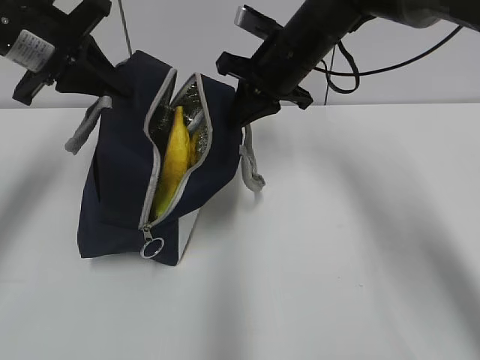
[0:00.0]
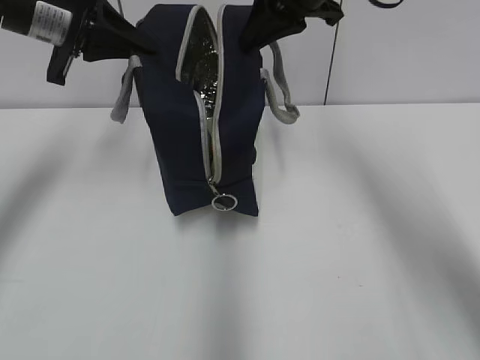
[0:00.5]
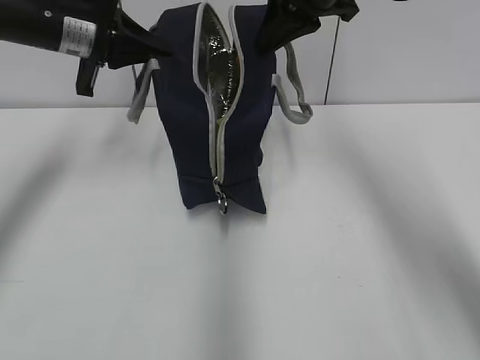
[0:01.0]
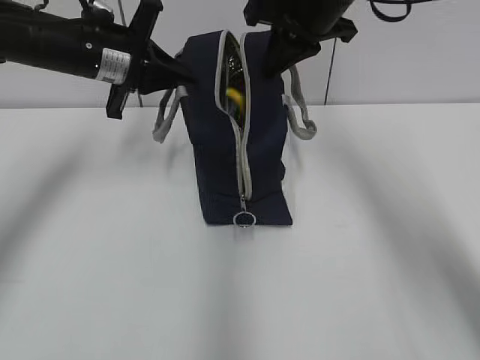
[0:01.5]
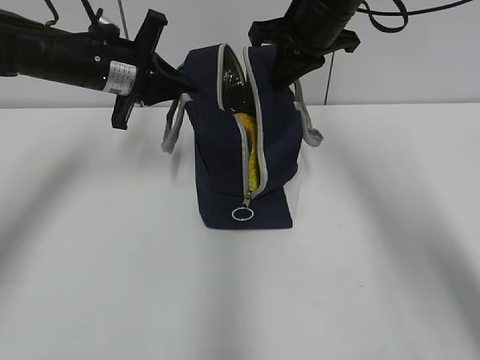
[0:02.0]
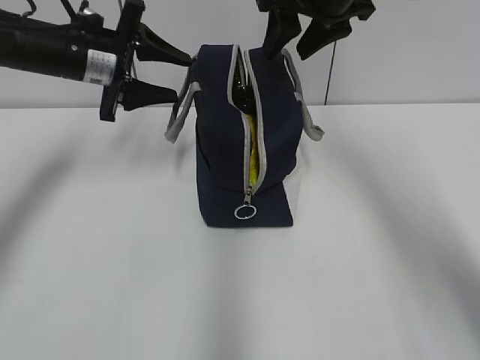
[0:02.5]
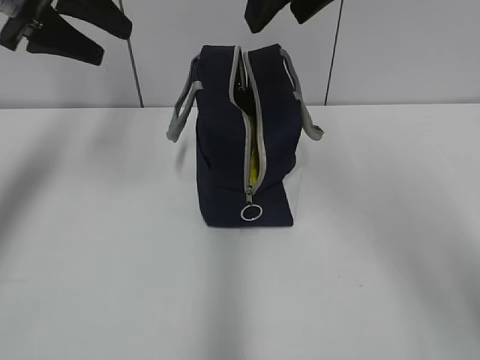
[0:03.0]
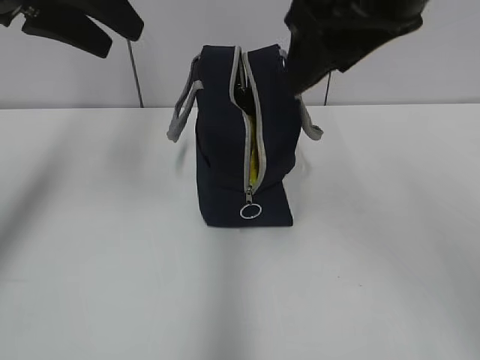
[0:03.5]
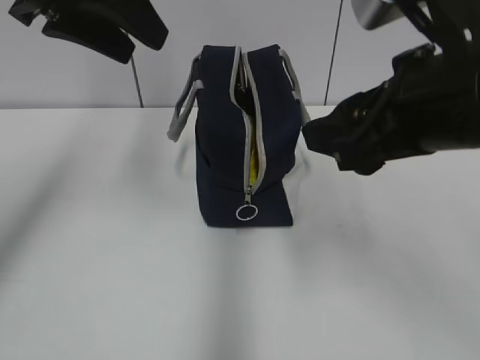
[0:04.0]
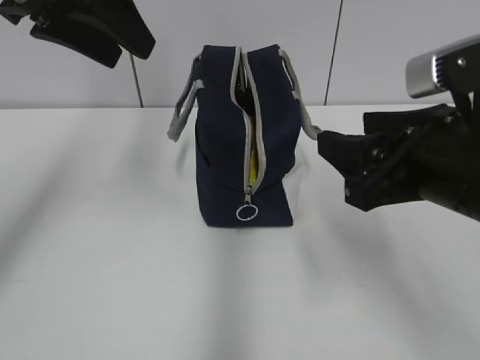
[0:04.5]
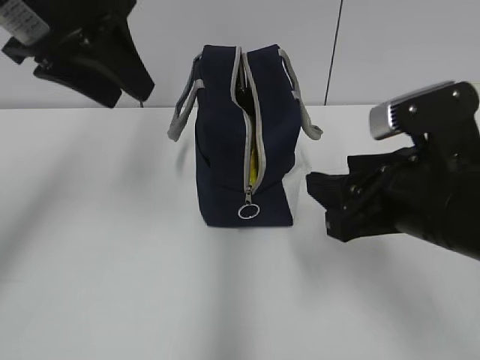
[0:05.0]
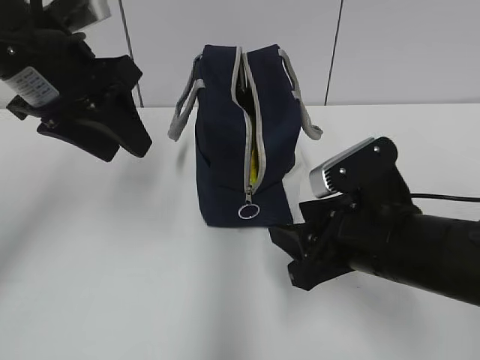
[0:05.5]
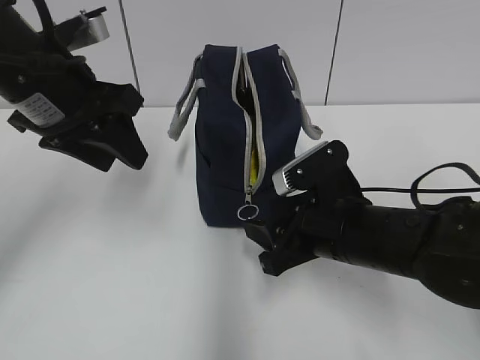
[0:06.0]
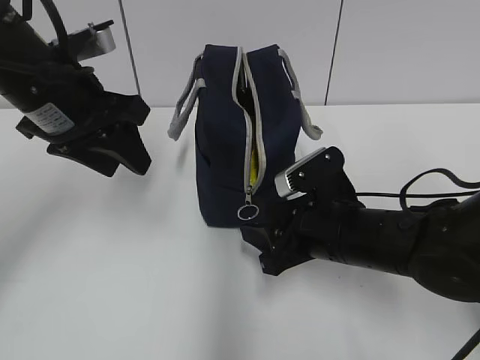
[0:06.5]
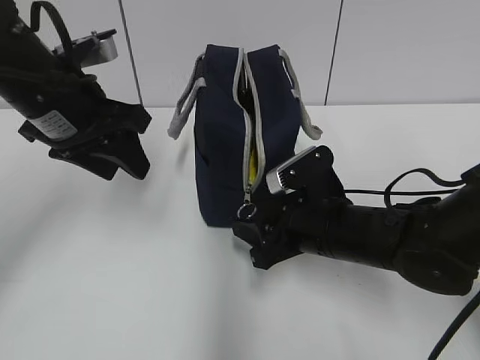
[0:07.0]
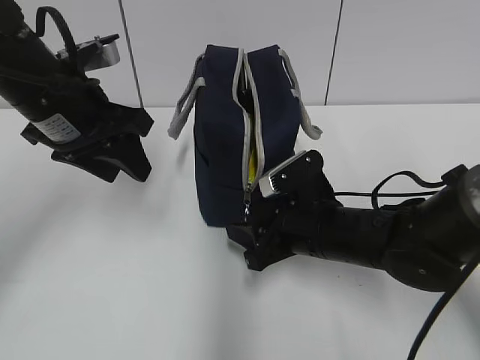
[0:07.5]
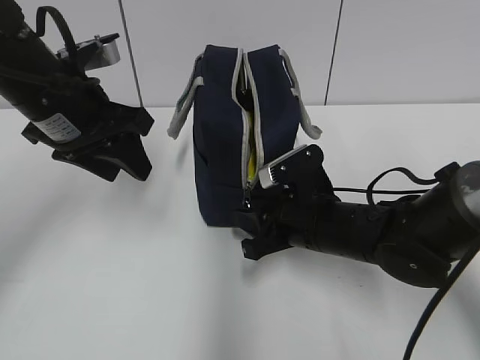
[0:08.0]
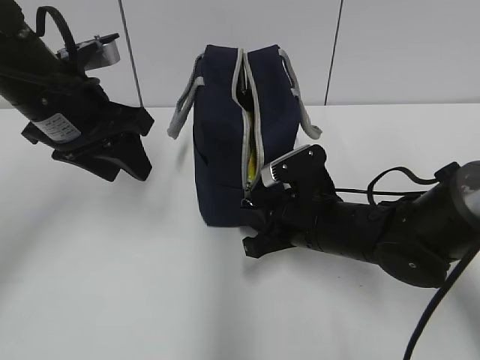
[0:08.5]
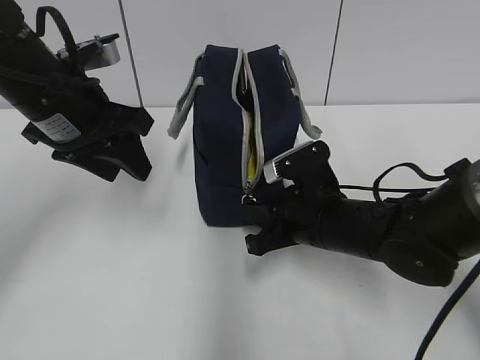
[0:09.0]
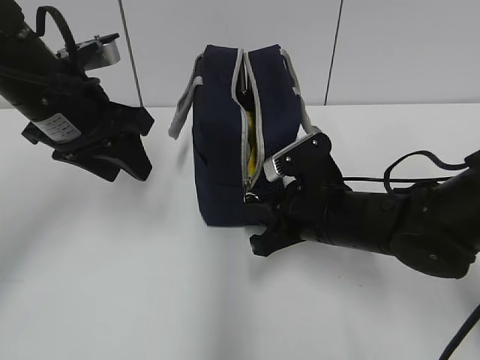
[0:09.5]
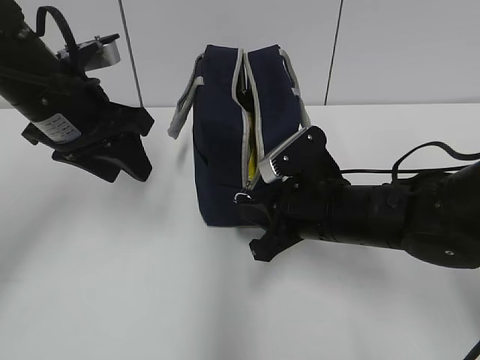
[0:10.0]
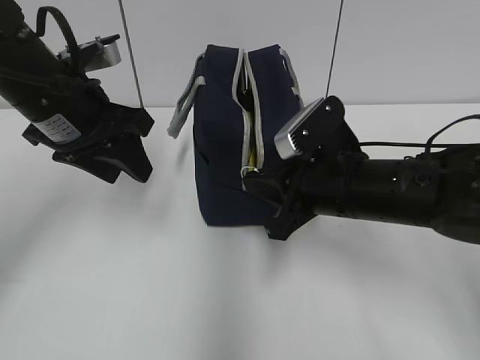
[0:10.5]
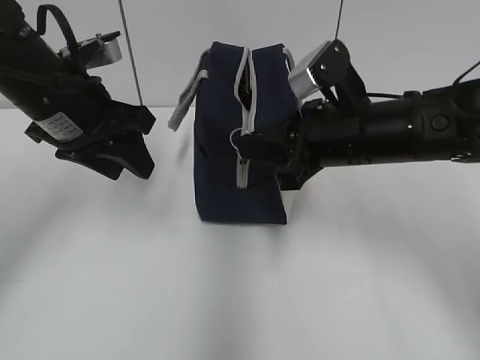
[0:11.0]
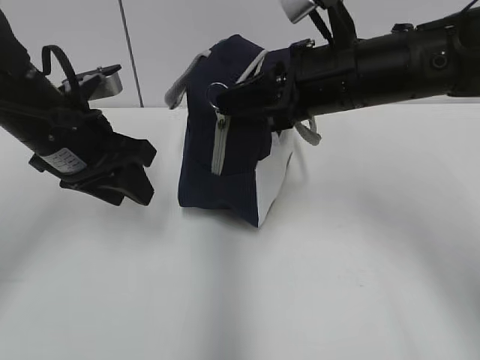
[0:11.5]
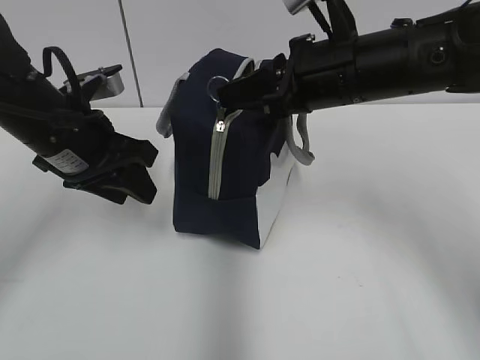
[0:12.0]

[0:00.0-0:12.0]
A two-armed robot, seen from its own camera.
Step, 0:00.0 to 0:02.0: Move the lunch bag to the right.
0:00.0 to 0:02.0: The right gripper moves upward, roughly 5 cm, while the left gripper is displaced downward and forward by roughly 10 cm.
0:02.0 to 0:04.0: The right gripper heads backward, covering approximately 25 cm, and opens its fingers. The left gripper shifts approximately 20 cm upward and backward, and opens up.
0:04.0 to 0:06.0: The right gripper shifts roughly 15 cm downward. The left gripper goes approximately 10 cm downward.
0:06.0 to 0:08.0: The right gripper moves about 5 cm.
0:08.0 to 0:10.0: The right gripper closes up.
0:10.0 to 0:12.0: The right gripper is displaced upward by roughly 15 cm.

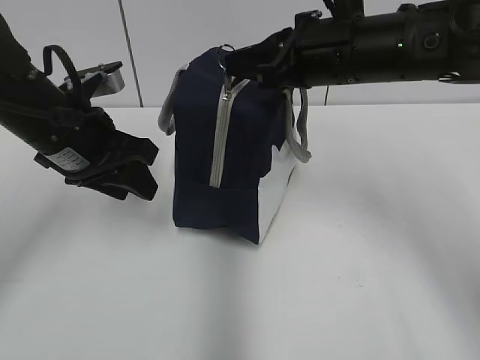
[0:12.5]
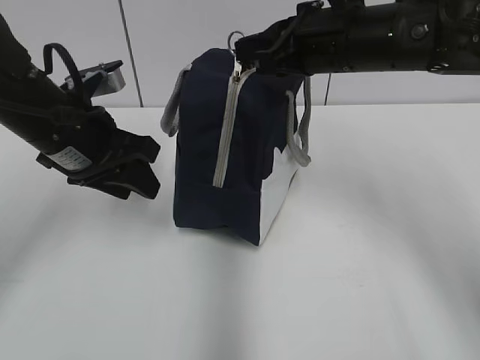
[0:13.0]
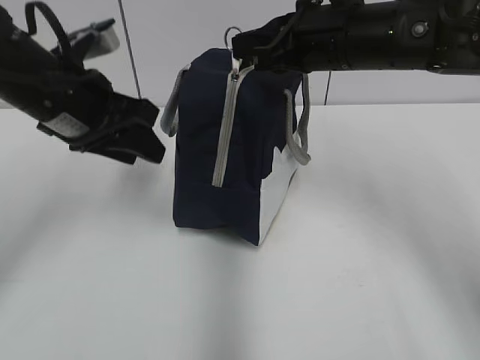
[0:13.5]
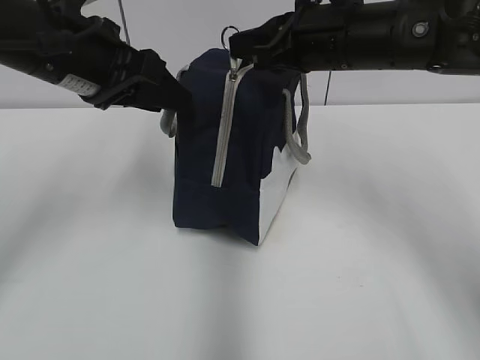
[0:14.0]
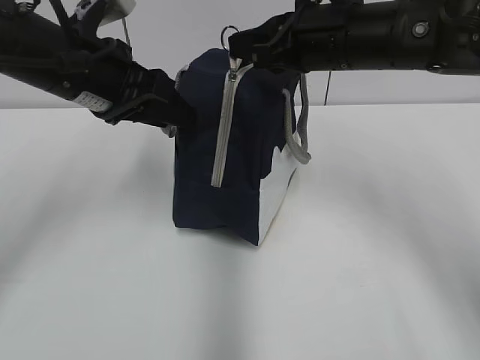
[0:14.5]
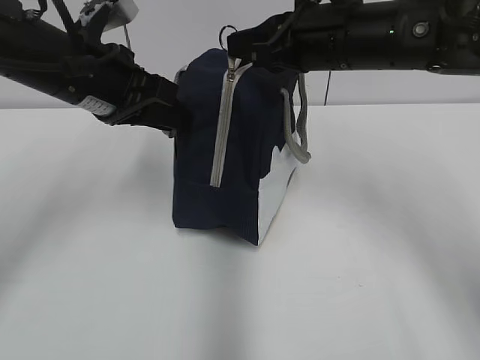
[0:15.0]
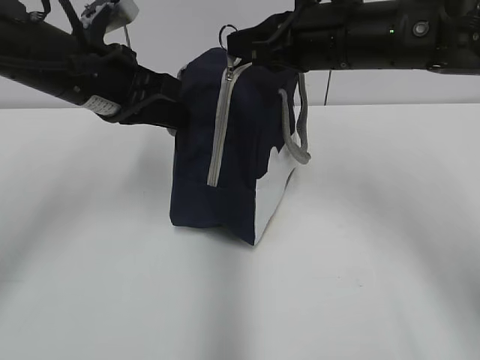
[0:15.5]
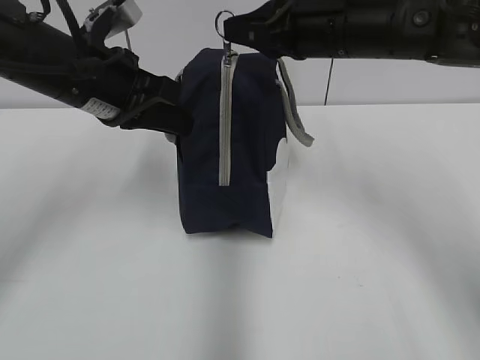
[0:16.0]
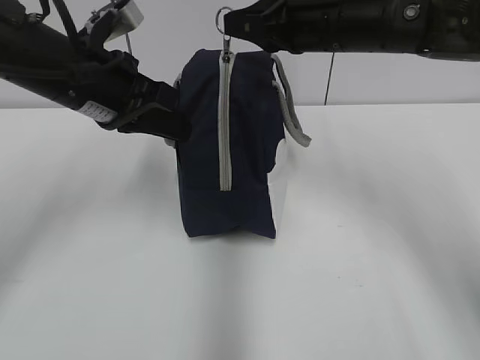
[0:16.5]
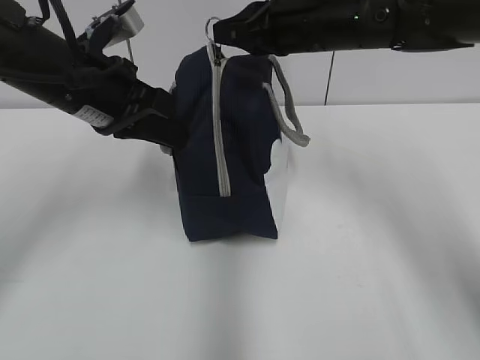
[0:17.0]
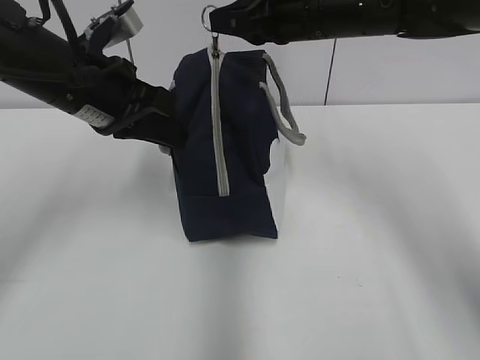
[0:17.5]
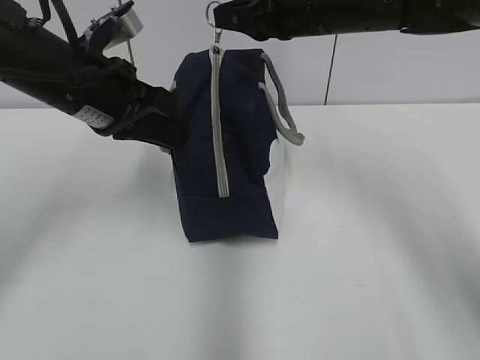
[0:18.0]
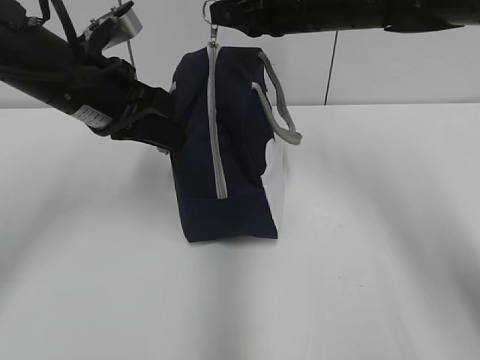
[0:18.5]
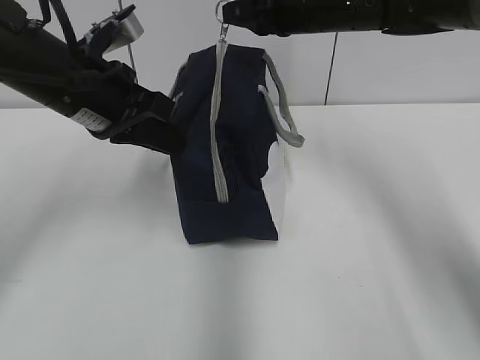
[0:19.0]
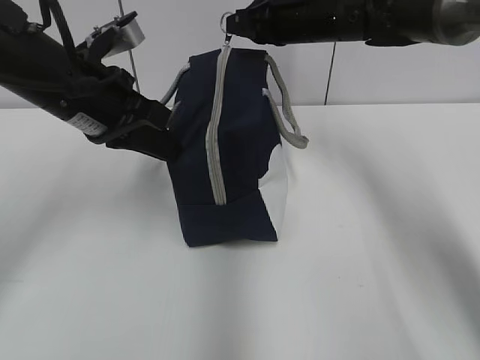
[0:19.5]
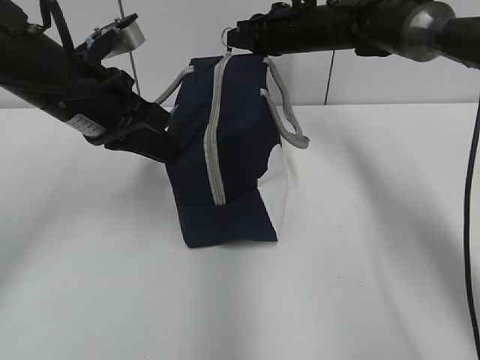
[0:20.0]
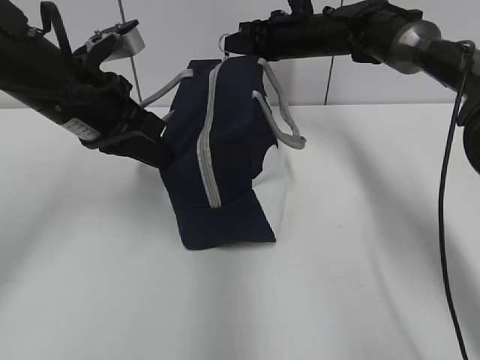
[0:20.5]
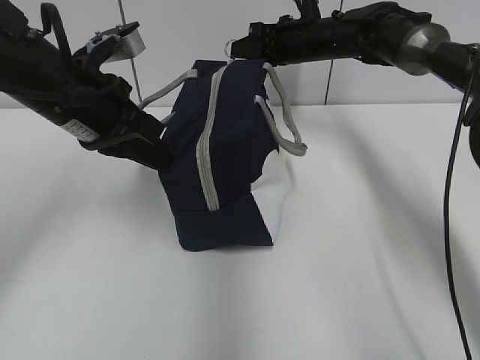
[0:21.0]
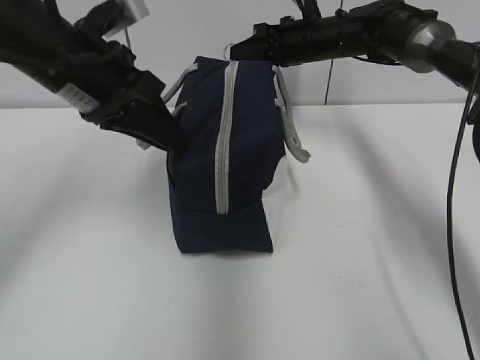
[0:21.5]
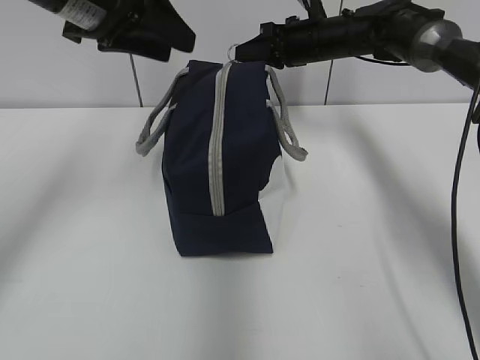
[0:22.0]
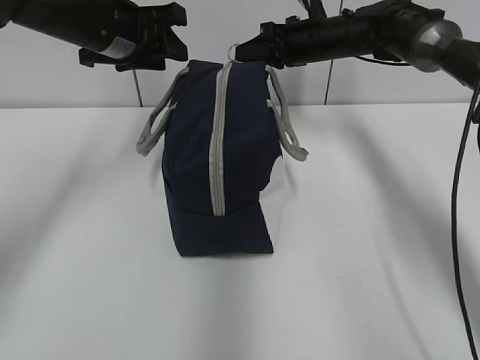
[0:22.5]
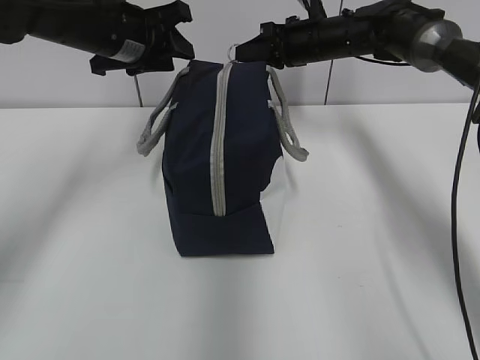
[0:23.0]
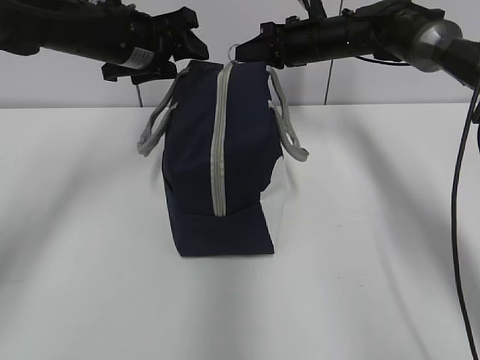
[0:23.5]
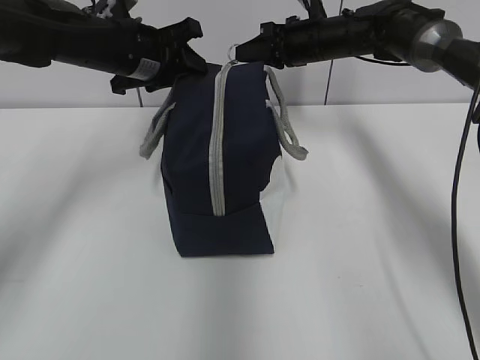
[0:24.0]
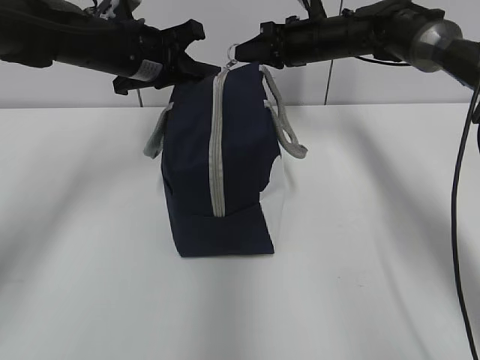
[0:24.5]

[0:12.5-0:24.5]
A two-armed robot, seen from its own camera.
Step, 0:12.5 to 0:15.5: Grab the lunch bag with your left hand.
0:12.5 to 0:14.5: The left gripper shifts by approximately 5 cm.
0:14.5 to 0:16.5: The left gripper closes up.
0:16.5 to 0:18.5: The grippers make only small movements.
0:18.5 to 0:20.5: The right gripper moves forward and downward, about 15 cm.
0:20.5 to 0:22.5: The left gripper shifts about 10 cm forward, and opens its fingers.
0:22.5 to 0:24.5: The left gripper closes its fingers.

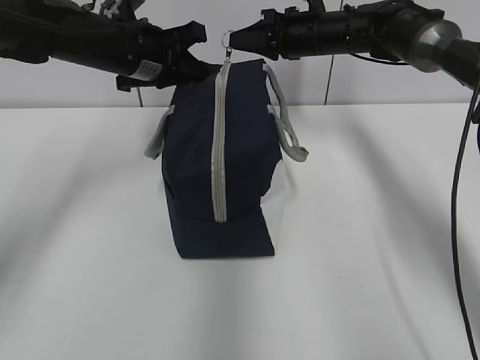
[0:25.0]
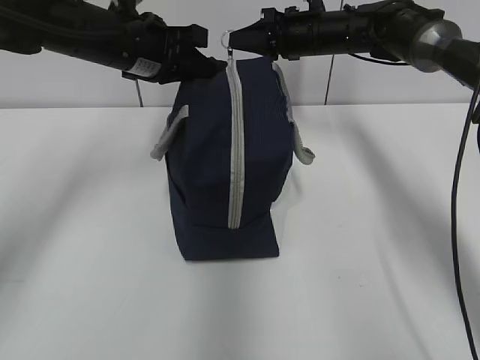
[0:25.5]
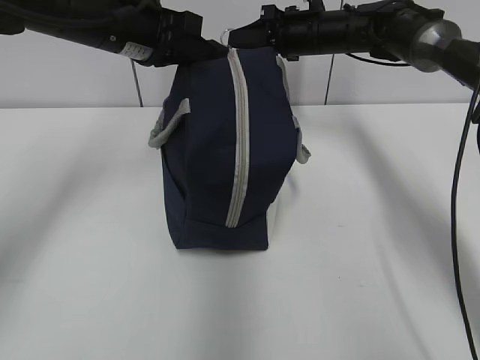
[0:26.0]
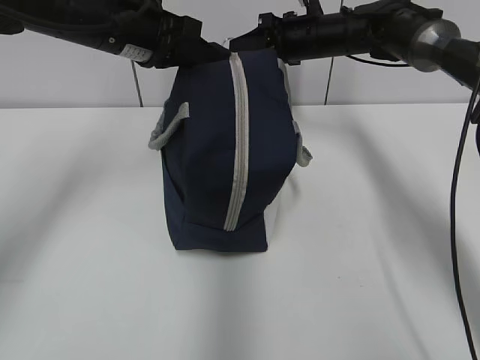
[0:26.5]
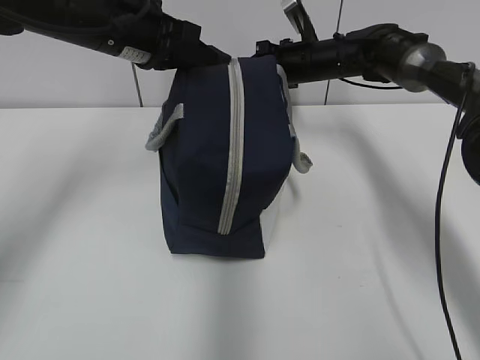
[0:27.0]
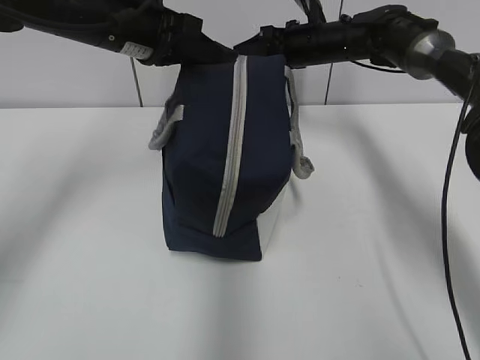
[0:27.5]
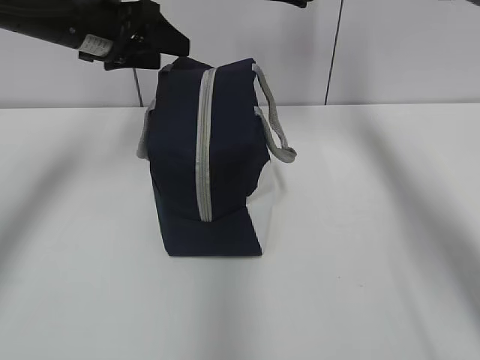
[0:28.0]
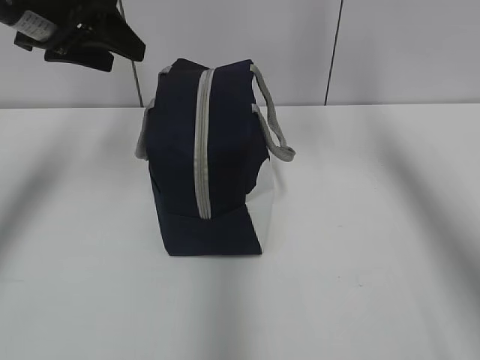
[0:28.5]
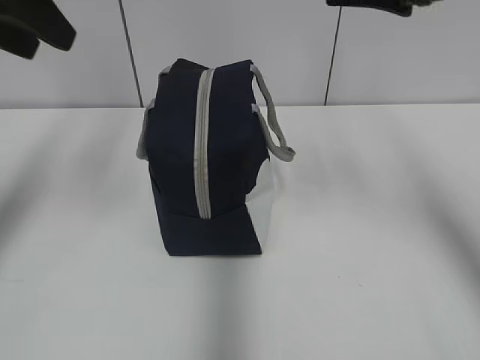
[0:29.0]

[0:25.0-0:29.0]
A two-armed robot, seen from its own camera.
Step, 0:25.0 to 0:27.0: Pull the zipper with your right hand.
0:27.0 to 0:29.0: The right gripper heads backward and upward, covering roughly 30 cm, and opens up. Meanwhile the left gripper travels backward, upward and to the left by about 20 cm, and opens.
